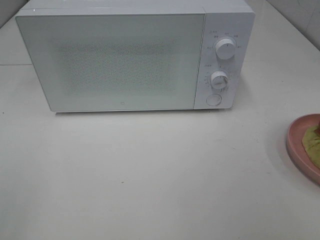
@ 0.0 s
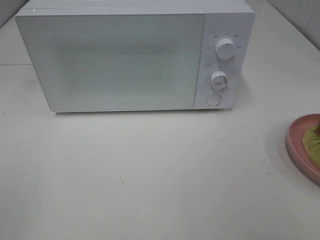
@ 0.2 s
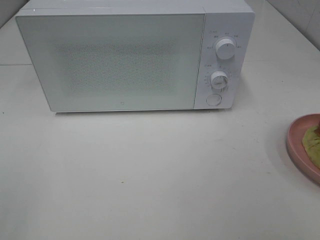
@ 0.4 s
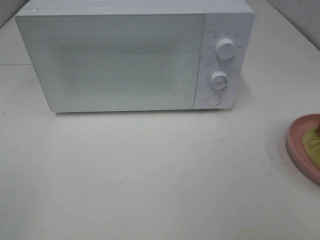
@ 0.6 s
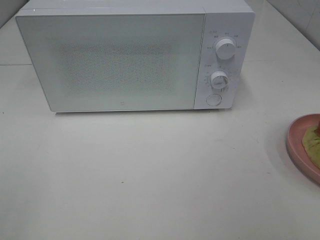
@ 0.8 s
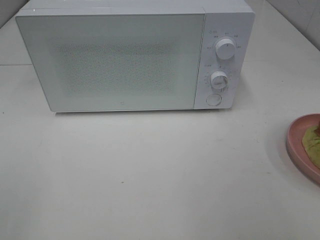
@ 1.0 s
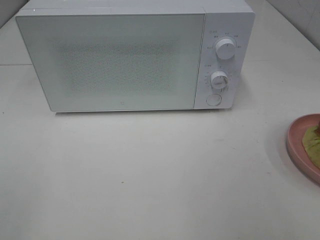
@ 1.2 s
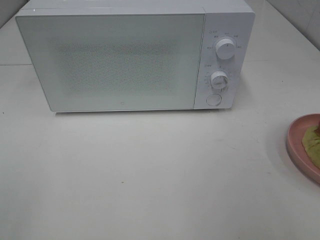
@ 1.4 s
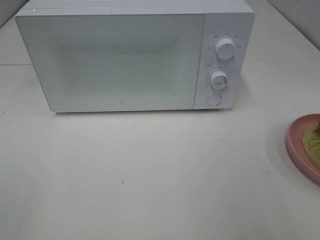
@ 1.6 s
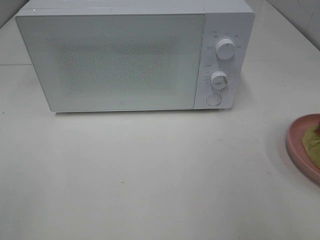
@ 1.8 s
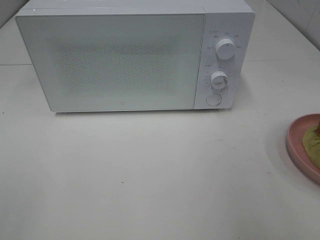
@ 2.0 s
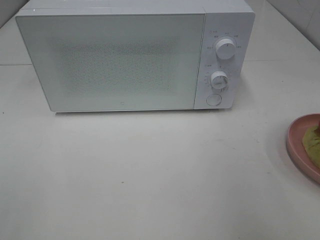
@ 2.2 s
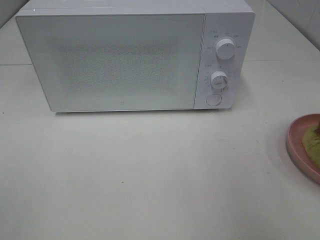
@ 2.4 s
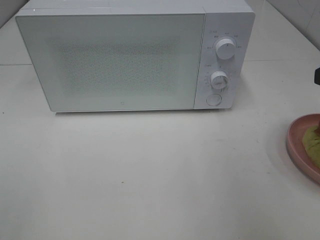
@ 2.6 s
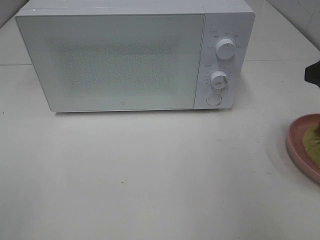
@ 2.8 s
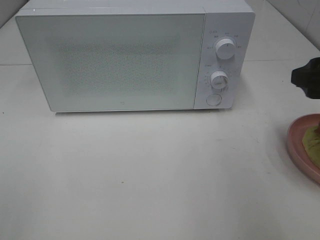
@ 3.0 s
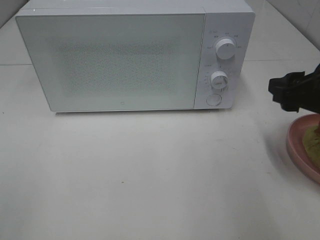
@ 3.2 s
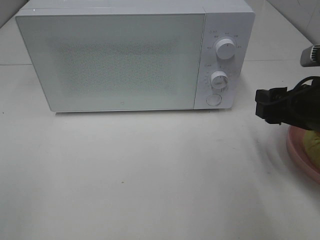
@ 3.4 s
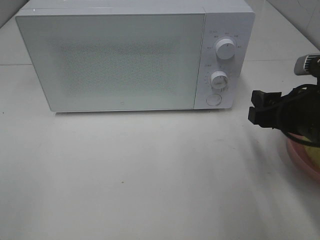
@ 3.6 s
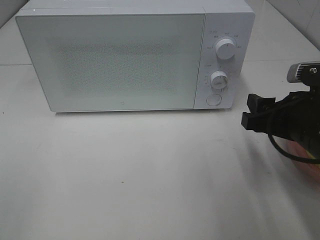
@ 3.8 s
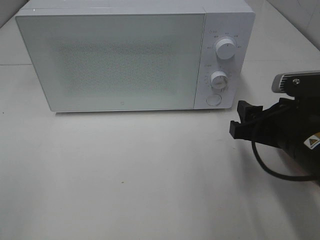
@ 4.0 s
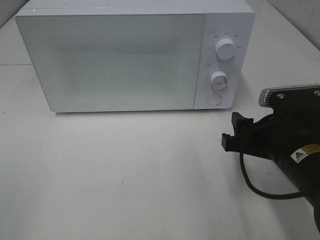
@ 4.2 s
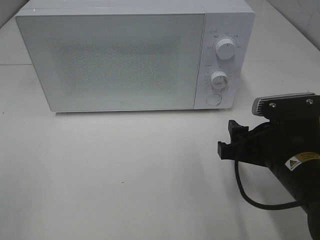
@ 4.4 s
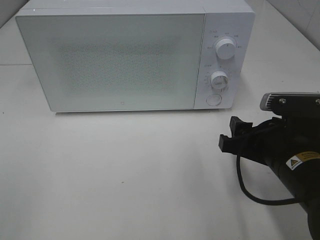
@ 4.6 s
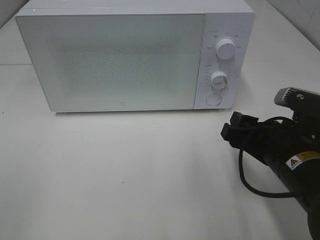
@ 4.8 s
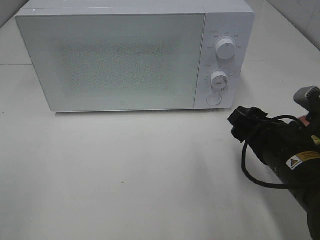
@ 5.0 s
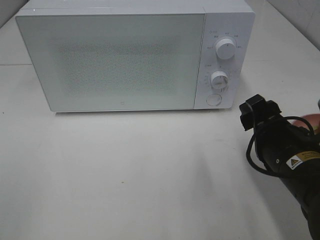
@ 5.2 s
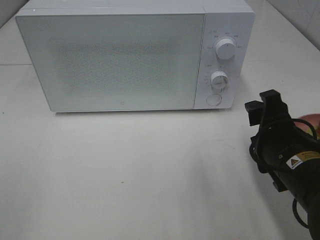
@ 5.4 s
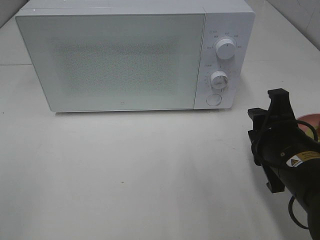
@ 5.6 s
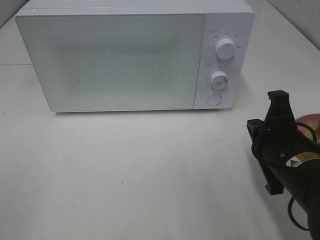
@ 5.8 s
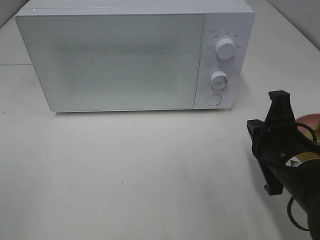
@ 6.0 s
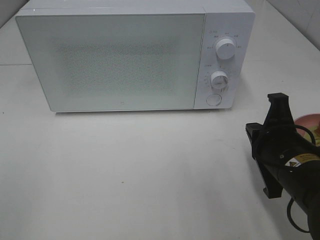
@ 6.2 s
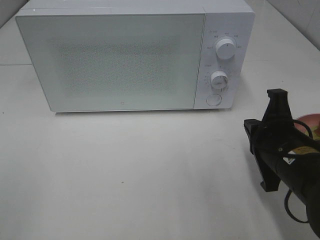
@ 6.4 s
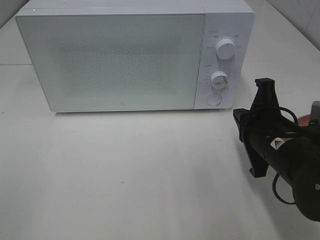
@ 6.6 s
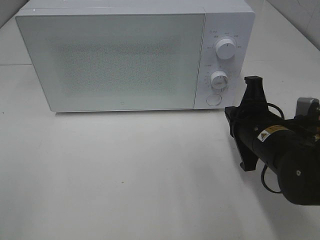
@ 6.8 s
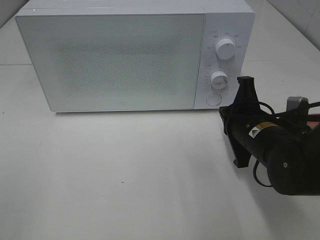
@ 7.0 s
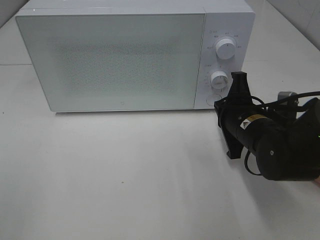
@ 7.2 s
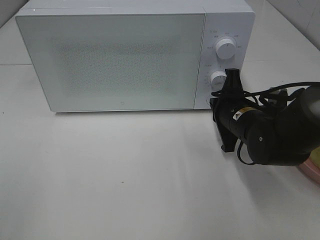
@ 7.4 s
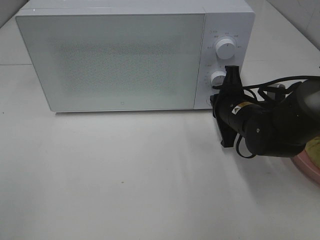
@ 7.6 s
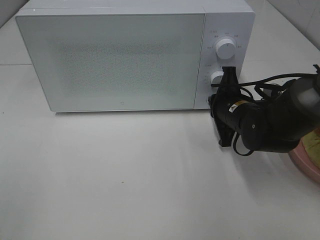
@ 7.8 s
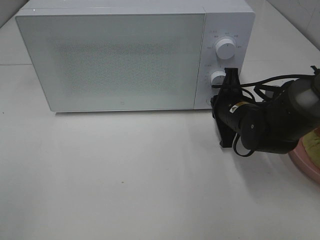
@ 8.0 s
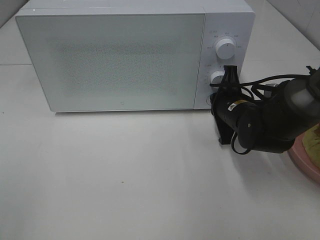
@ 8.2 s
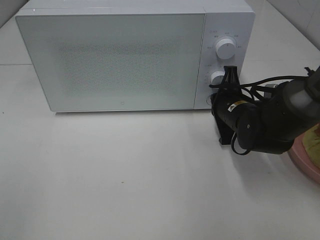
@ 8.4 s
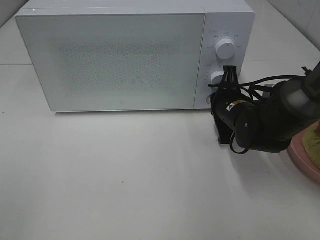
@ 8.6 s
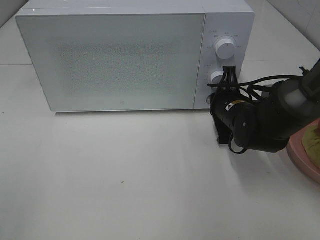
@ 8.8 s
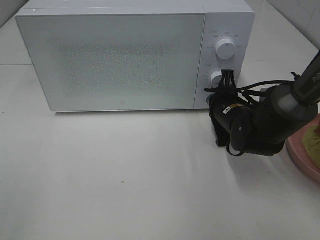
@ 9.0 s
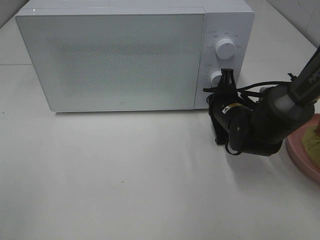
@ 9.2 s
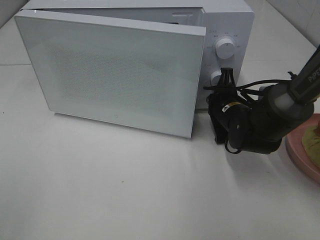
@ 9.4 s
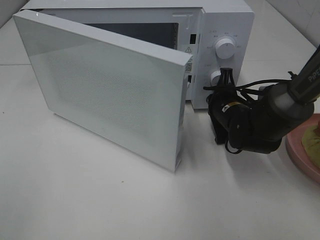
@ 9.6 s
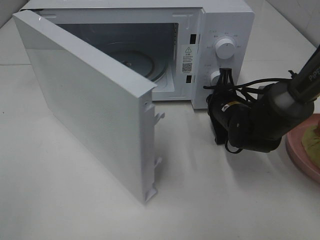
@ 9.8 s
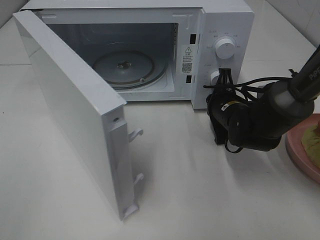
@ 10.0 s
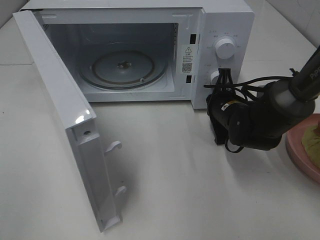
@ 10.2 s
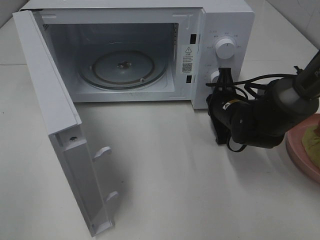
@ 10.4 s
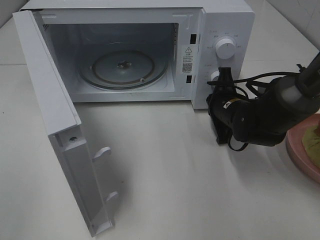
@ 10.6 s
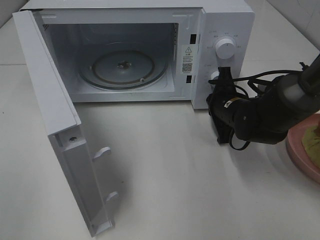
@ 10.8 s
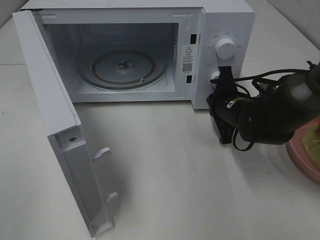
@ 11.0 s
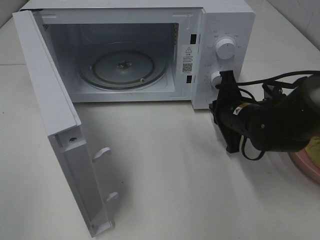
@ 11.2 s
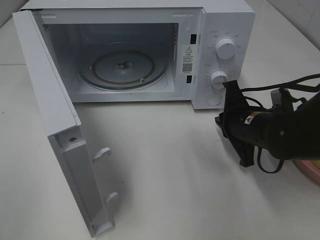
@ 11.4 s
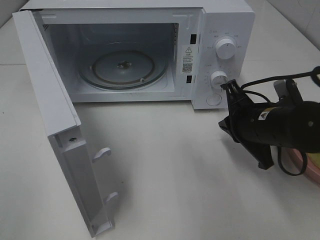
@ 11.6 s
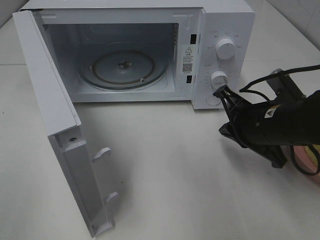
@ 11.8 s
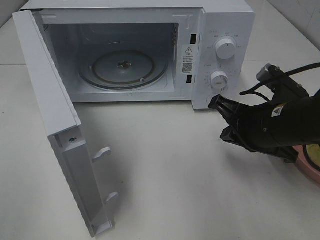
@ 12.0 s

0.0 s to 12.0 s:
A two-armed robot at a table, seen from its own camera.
Task of the whole recording: Heat Sandwich.
Step, 0.0 to 11.2 s: Right hand: press the switch.
1.6 to 3.0 s: The right gripper heads forward and downward, covering some 15 cm.
3.0 to 4.4 s: The right gripper heads downward and to the left, covering approximately 15 cm.
4.4 to 6.0 s: The right gripper closes its fingers.
6.0 to 7.6 s: The right gripper heads forward, covering about 15 cm.
7.6 to 9.0 s: The grippers stay close to where they were, moving slightly.
10.4 to 12.0 s: The right gripper heads backward and upward, covering roughly 15 cm.

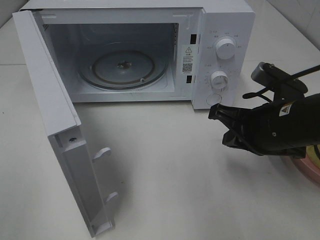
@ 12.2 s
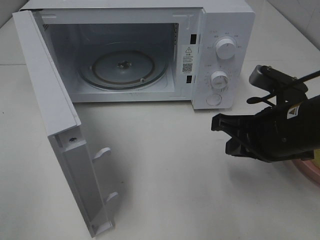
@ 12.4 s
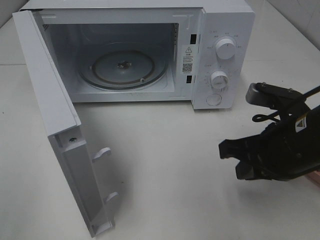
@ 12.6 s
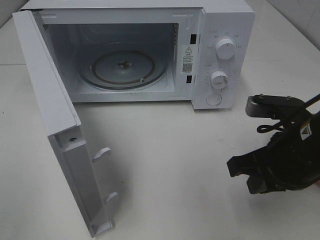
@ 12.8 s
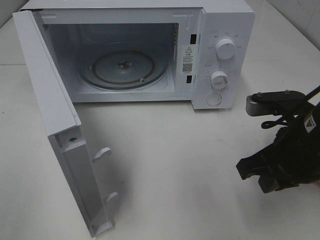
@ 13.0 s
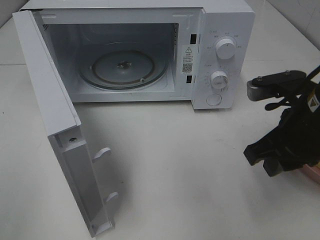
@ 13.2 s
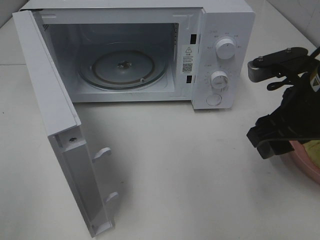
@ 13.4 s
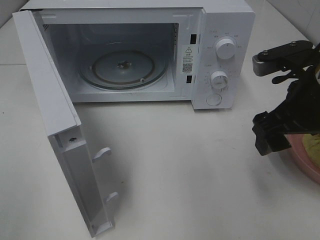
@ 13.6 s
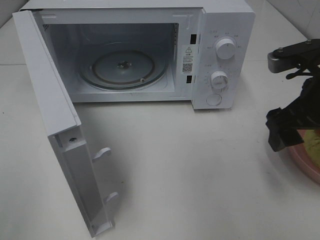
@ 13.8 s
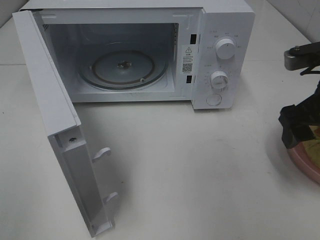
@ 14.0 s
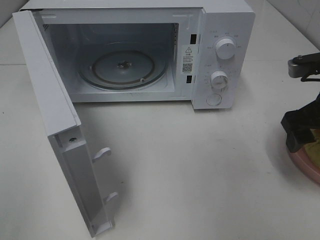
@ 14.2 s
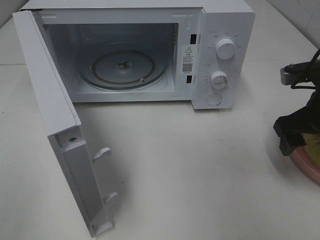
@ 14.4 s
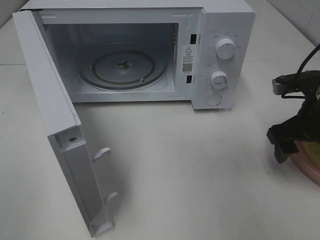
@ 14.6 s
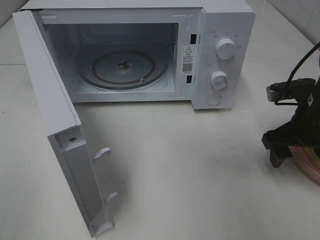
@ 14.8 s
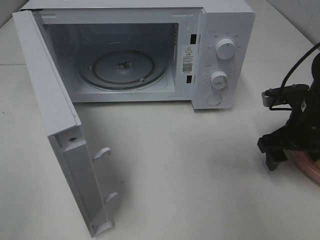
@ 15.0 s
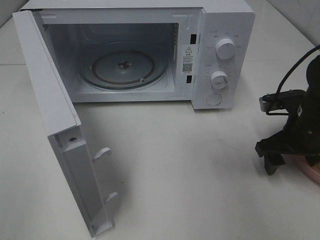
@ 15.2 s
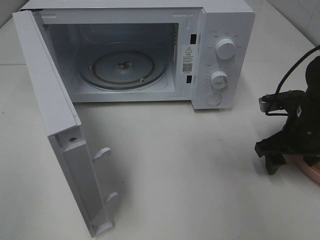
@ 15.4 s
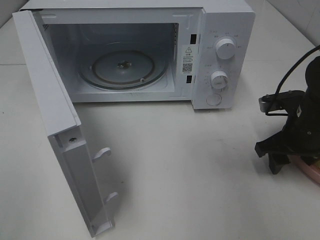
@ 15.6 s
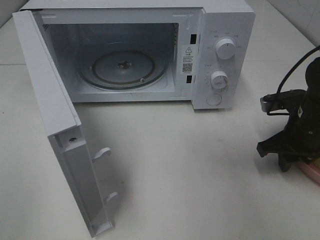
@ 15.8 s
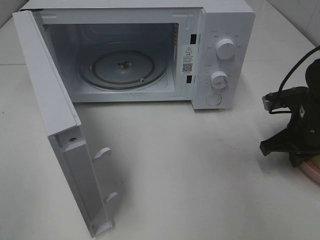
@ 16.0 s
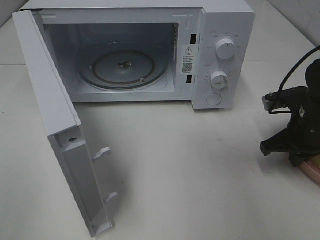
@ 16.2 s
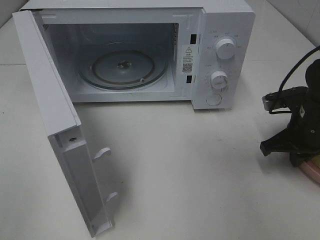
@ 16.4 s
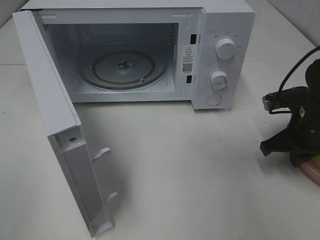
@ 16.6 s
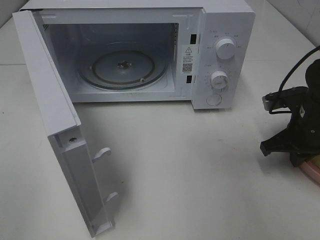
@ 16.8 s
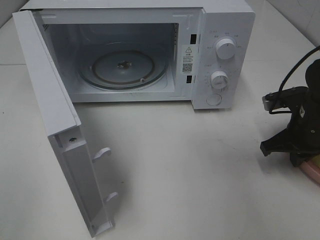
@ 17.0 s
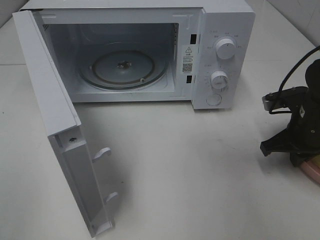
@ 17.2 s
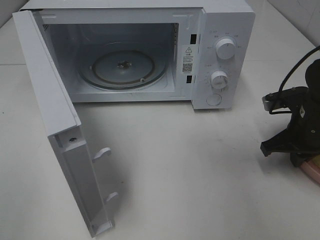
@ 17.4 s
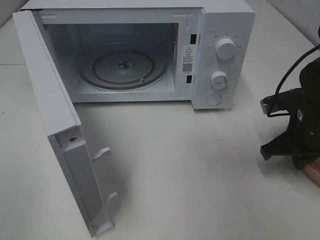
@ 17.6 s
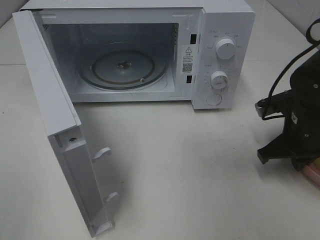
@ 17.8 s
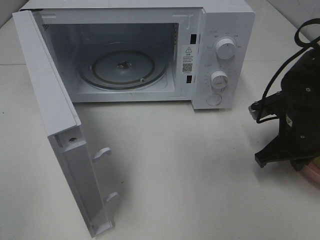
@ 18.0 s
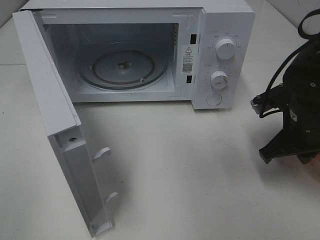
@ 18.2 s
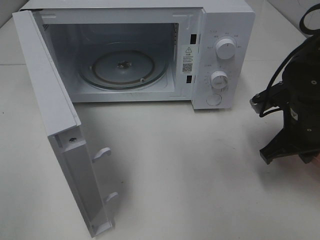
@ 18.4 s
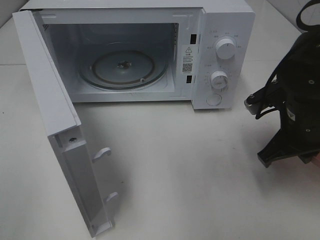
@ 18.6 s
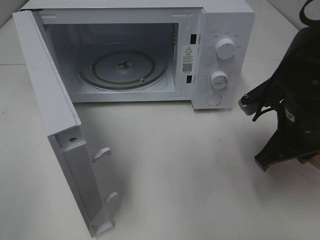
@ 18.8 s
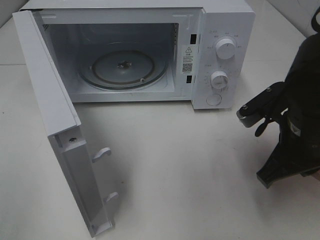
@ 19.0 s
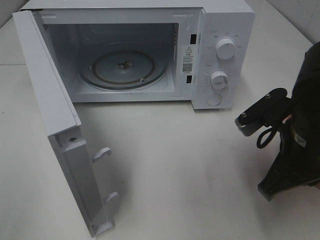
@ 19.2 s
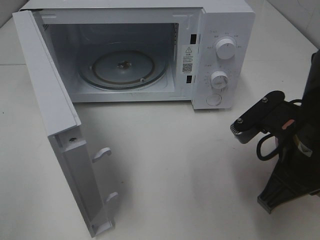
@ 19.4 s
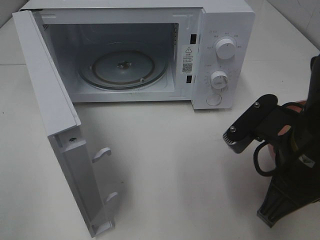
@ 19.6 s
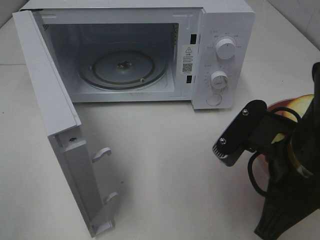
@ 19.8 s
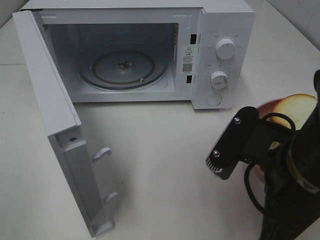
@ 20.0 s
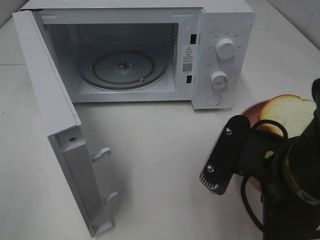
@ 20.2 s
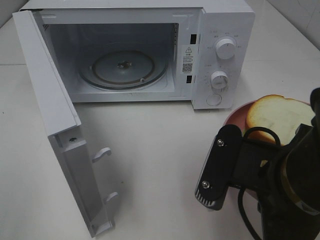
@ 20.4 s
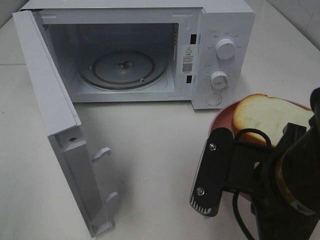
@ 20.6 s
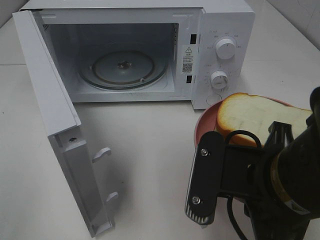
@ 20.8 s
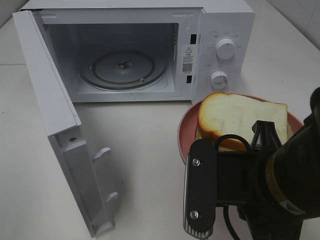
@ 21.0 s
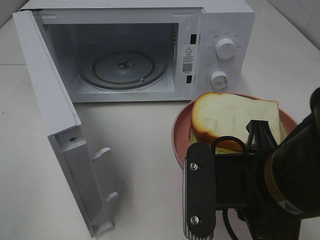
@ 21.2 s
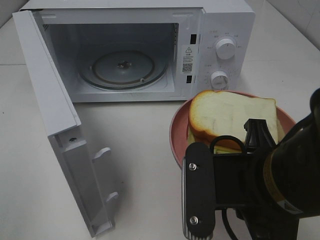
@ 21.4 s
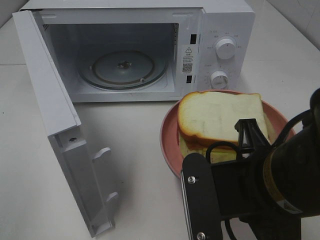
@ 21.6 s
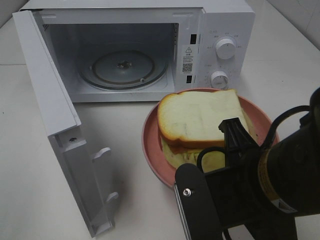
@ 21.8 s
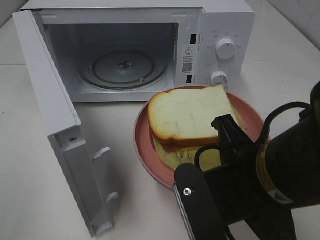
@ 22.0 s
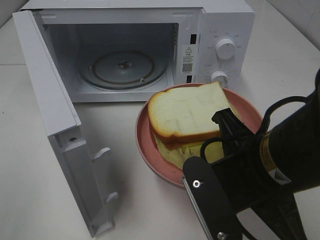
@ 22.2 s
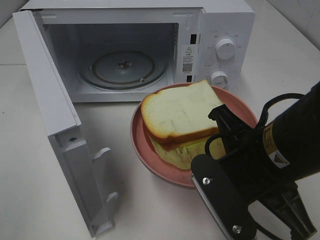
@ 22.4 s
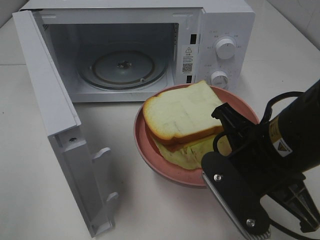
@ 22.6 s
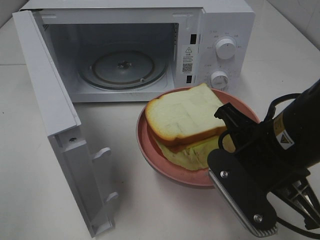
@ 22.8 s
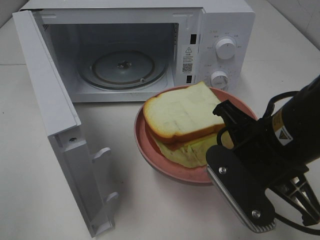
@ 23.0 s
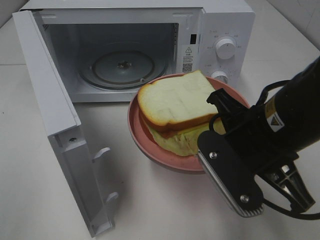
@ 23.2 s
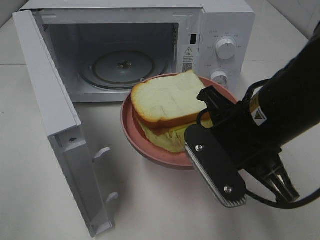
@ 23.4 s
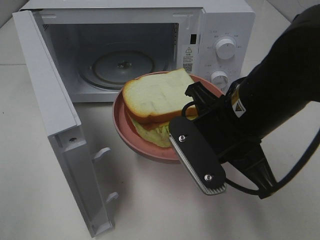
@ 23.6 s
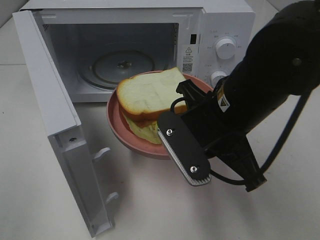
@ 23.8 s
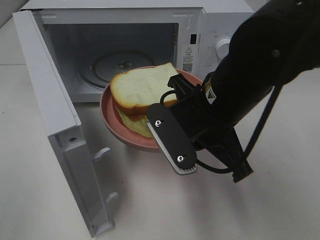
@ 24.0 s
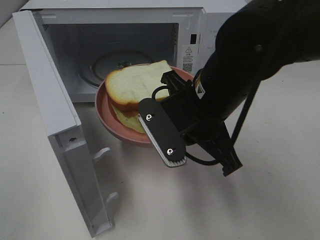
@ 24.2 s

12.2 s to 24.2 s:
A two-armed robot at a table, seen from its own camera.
Task of the whole recording: Heat Sandwich.
Step, 12.2 to 15.8 s: Right hand: grab the plate with the sandwich.
12.2 to 13.8 s: The right gripper heads upward, covering approximately 5 cm, and opens up.
13.8 to 15.2 s: The right gripper is displaced downward and forward by roughly 10 cm.
15.2 to 16.6 s: The right gripper closes its fingers.
16.6 to 18.2 s: The grippers move only a little.
18.2 to 19.8 s: The right gripper shifts about 15 cm backward, to the left and upward.
21.2 to 22.6 s: The right gripper ends up about 5 cm from where it was.
22.6 to 24.2 s: The right gripper travels forward and to the left by approximately 10 cm.
